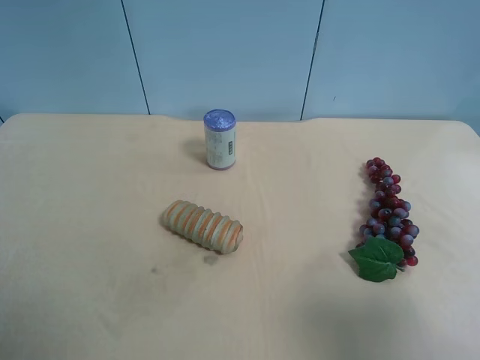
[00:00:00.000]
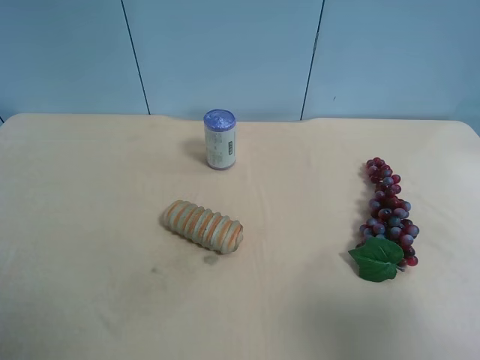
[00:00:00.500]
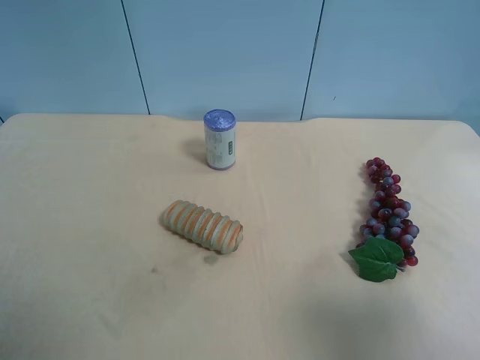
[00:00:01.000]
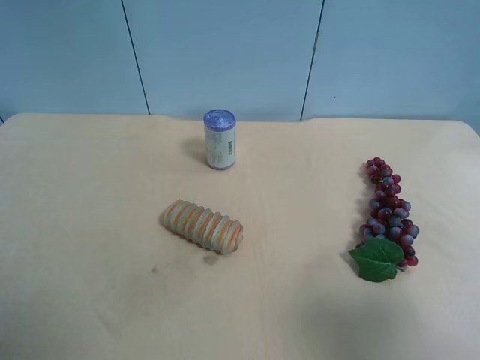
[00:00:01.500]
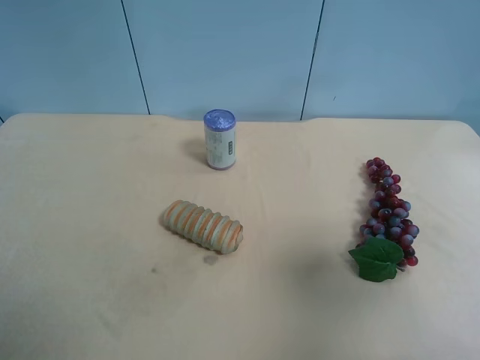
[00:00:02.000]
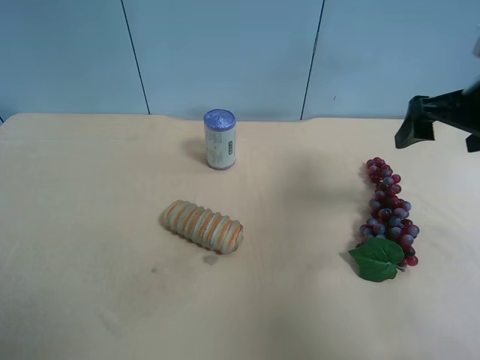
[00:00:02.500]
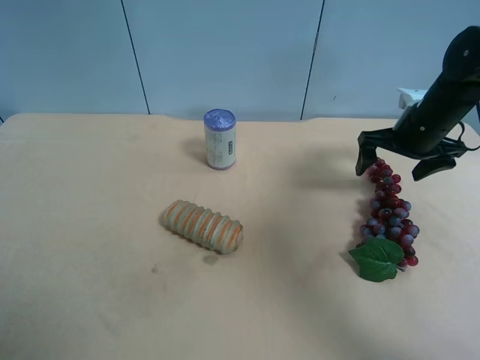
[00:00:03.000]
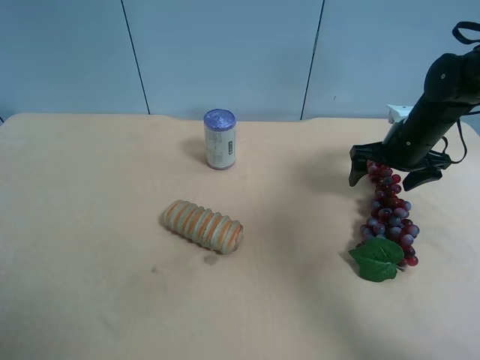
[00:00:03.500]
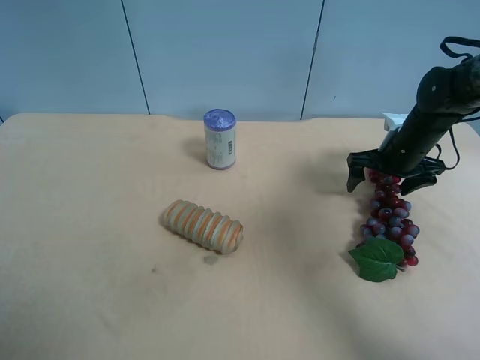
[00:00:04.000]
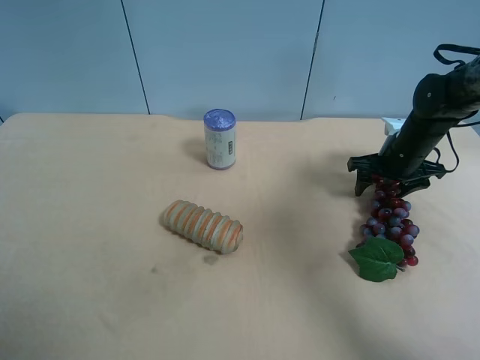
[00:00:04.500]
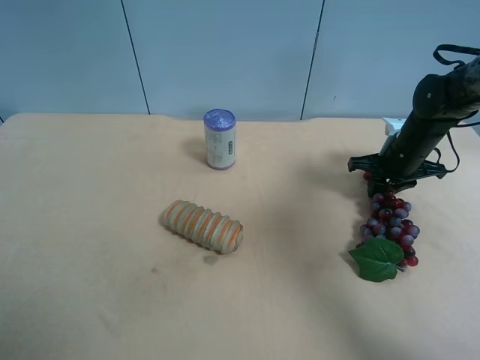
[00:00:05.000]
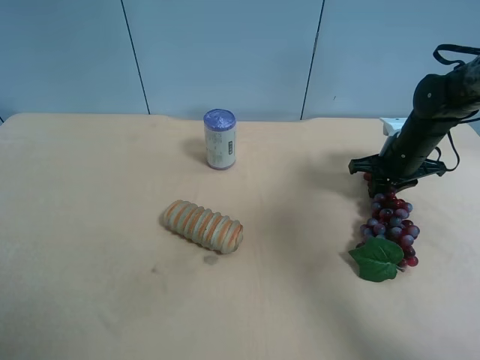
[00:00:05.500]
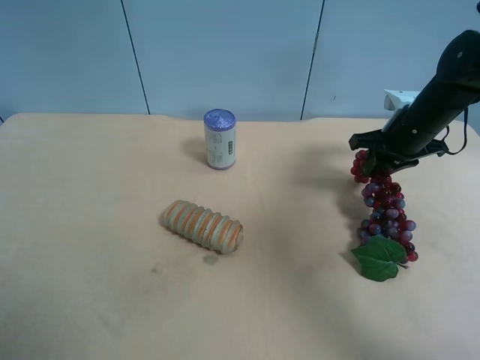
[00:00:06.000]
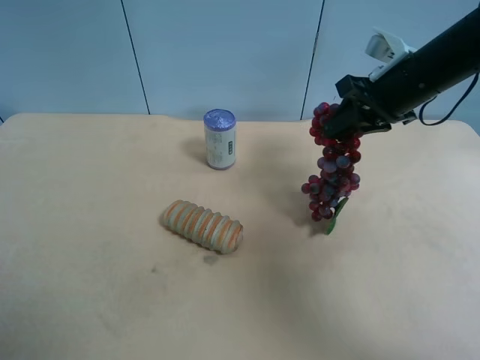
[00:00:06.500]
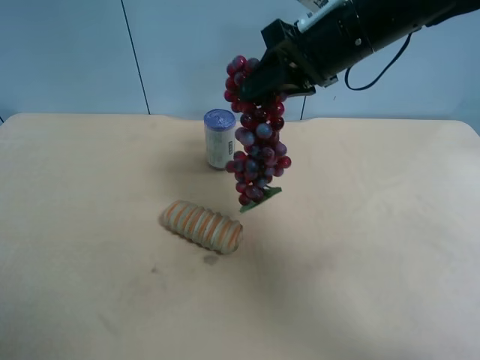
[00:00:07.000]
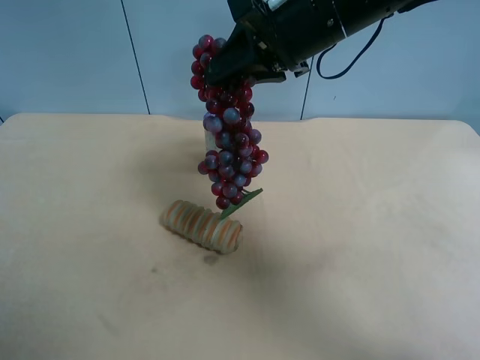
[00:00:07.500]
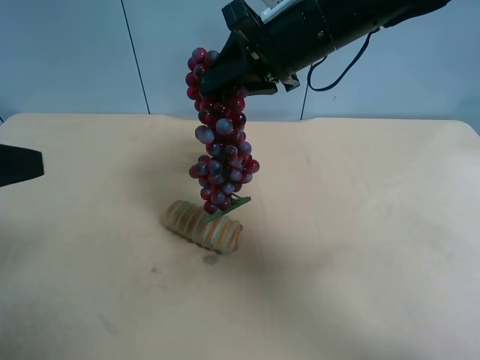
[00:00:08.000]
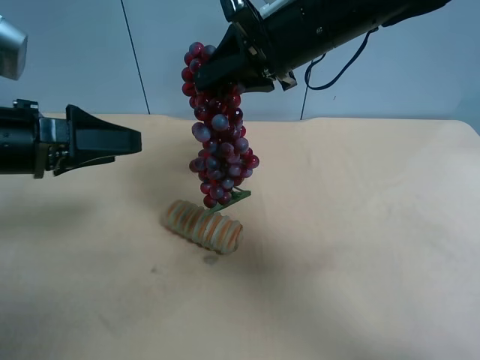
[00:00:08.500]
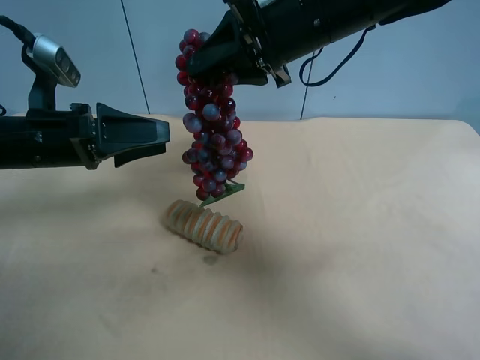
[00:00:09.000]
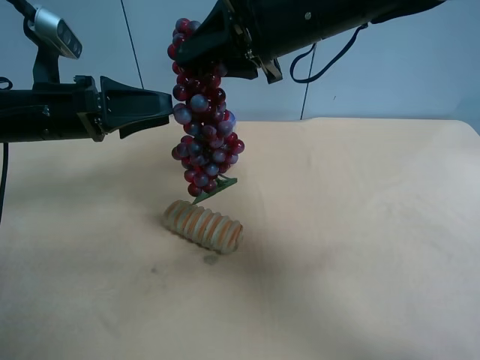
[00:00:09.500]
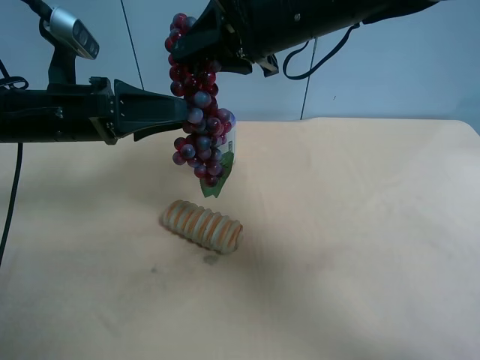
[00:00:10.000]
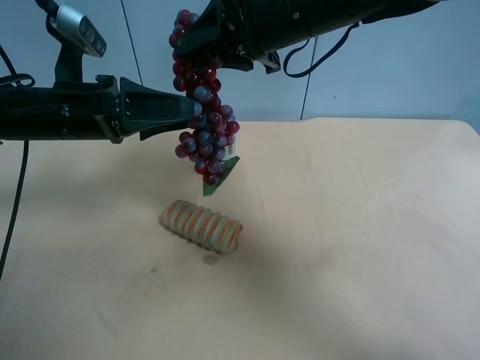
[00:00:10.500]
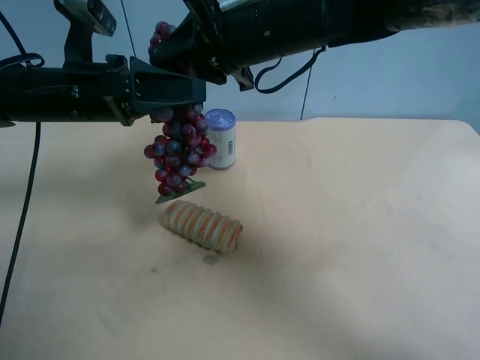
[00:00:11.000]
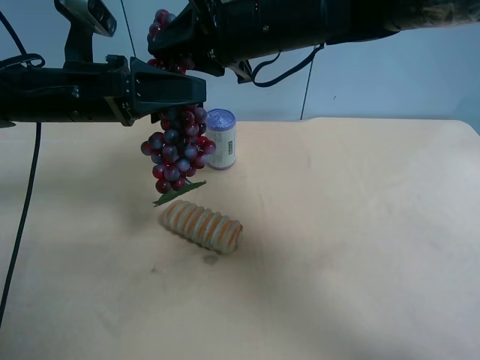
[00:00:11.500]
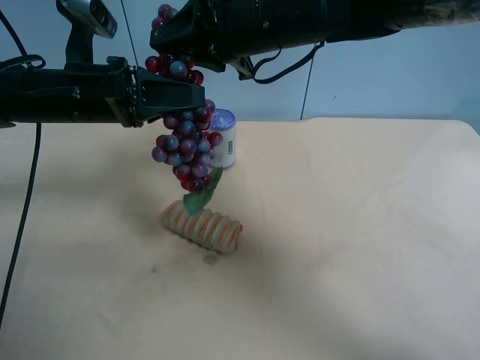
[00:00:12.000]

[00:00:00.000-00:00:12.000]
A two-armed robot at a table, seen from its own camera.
Task of the whole recording: use the right gripper to pick up the item and transfer it from the right gripper to the left gripper.
00:00:00.000 to 00:00:02.000: The right gripper goes about 10 cm forward.
00:00:02.000 to 00:00:04.000: The right gripper is displaced forward and downward by about 35 cm.
00:00:04.000 to 00:00:06.000: The right gripper travels upward by roughly 5 cm, and closes up.
00:00:06.000 to 00:00:08.000: The right gripper moves to the left and upward, approximately 25 cm; the left gripper heads forward, covering about 10 cm.
00:00:08.000 to 00:00:10.000: The left gripper travels forward, downward and to the right by some 20 cm.
00:00:10.000 to 00:00:12.000: The left gripper closes its fingers.

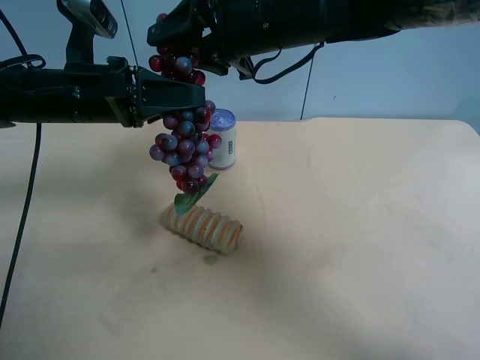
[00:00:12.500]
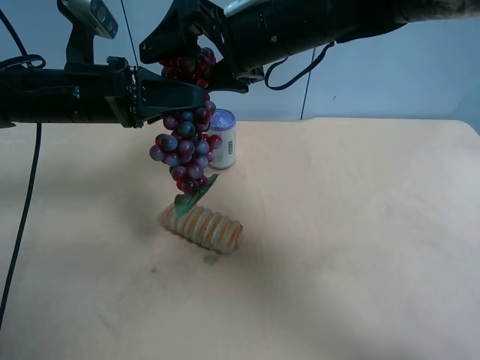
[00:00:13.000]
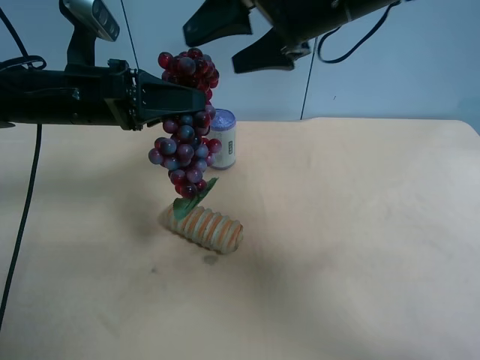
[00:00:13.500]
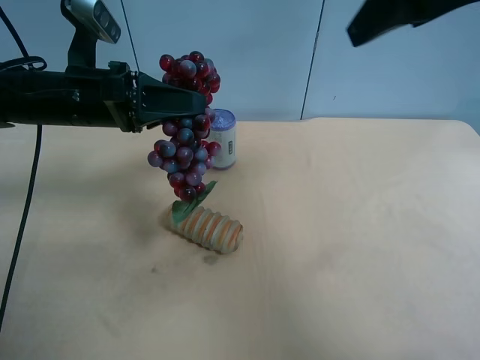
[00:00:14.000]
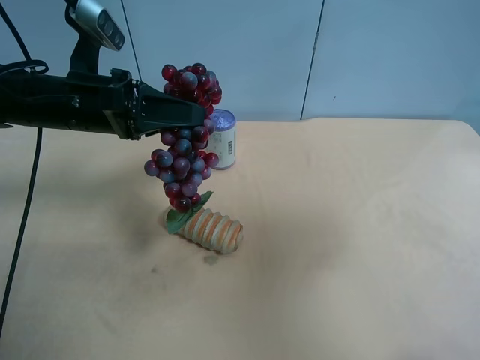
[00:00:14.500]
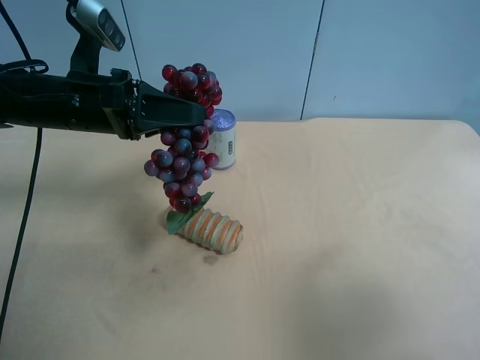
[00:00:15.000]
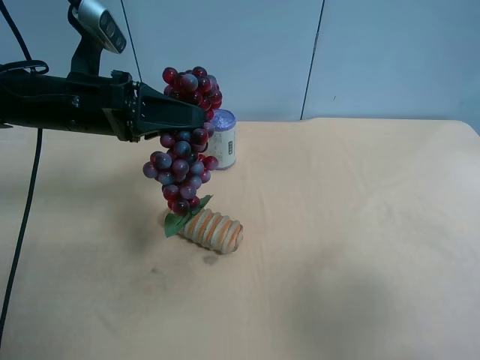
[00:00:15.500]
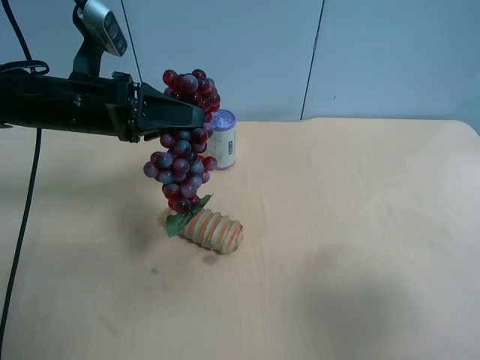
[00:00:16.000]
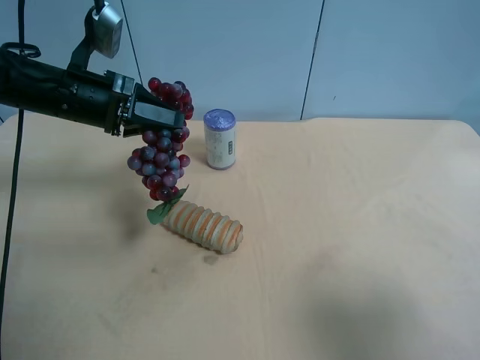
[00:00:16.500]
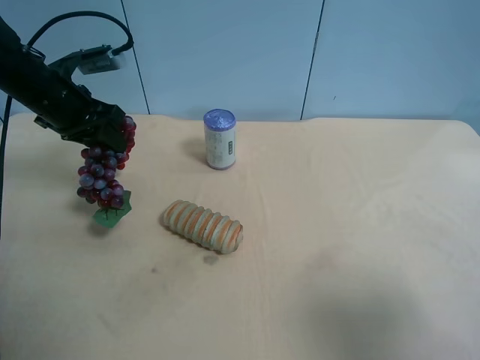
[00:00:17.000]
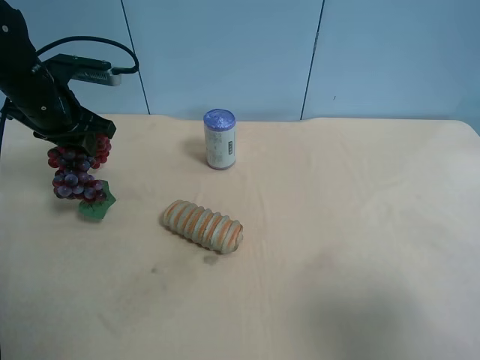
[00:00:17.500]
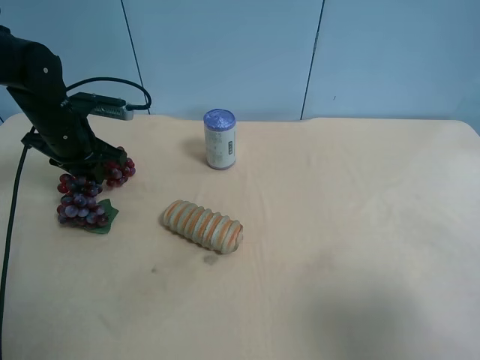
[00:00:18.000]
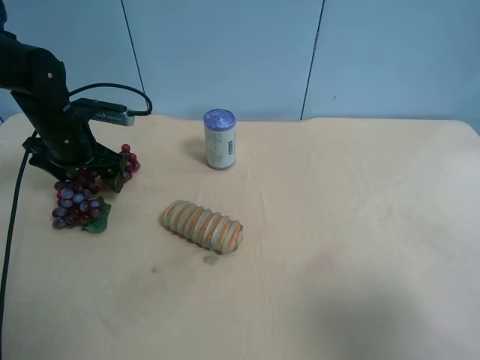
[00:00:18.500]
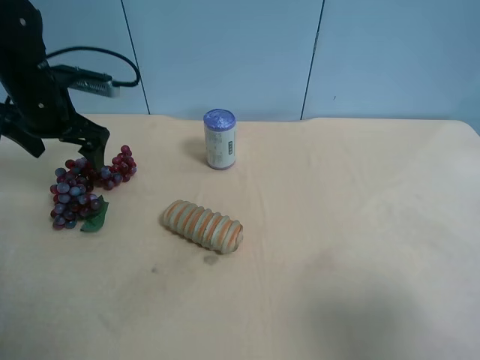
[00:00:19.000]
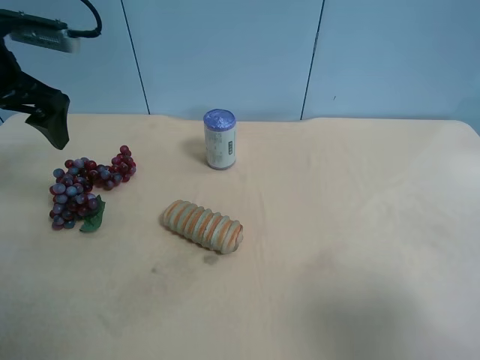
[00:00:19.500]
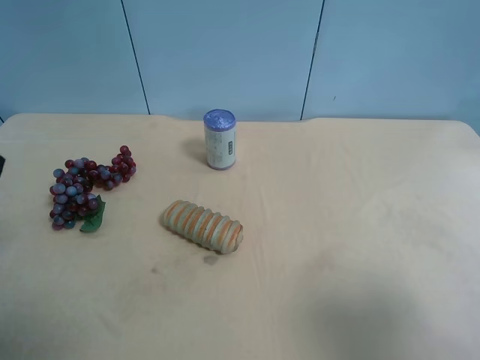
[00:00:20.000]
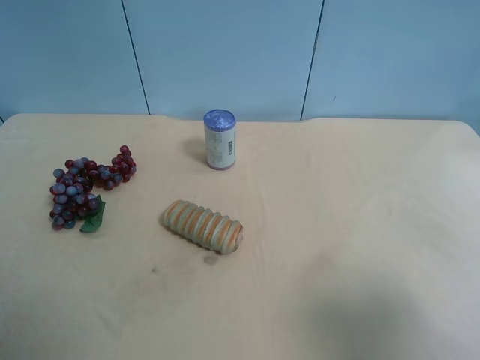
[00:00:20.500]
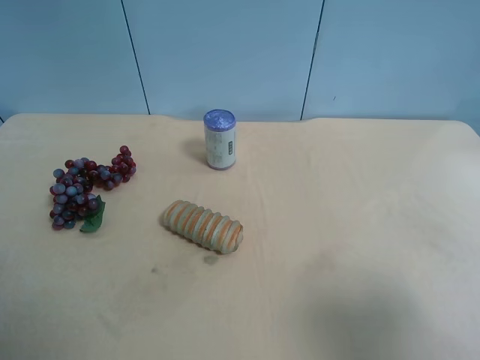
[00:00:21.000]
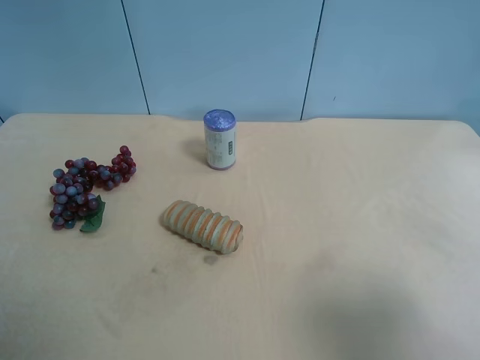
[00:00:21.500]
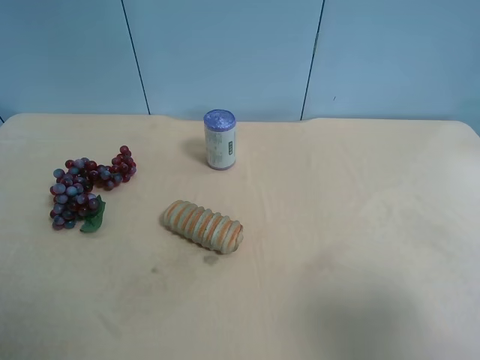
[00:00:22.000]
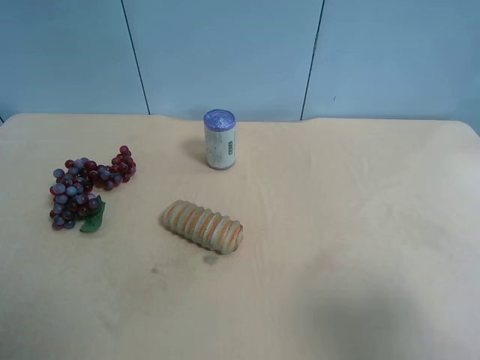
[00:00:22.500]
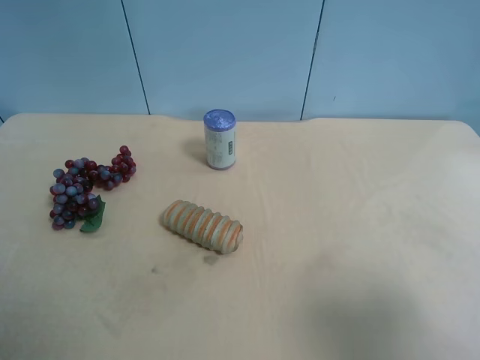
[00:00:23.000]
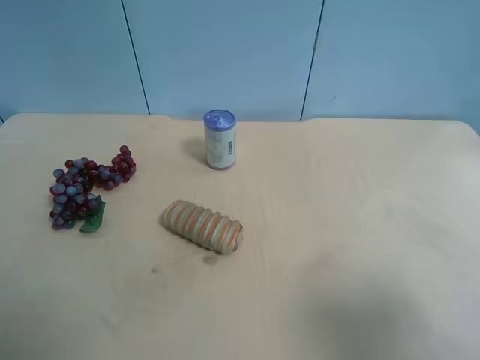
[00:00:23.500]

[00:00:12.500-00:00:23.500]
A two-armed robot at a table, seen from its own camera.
Task of the whole recording: use the right gripper to pick up the item and transfer it from the right gripper to the left gripper.
00:00:12.500 to 00:00:14.500: The right gripper travels backward and to the right by about 35 cm, and opens up.
00:00:14.500 to 00:00:16.000: The right gripper goes some 10 cm downward and backward.
00:00:16.000 to 00:00:18.000: The left gripper shifts roughly 10 cm to the left, forward and downward.
00:00:18.000 to 00:00:20.000: The left gripper moves backward and upward, about 30 cm, and opens up.

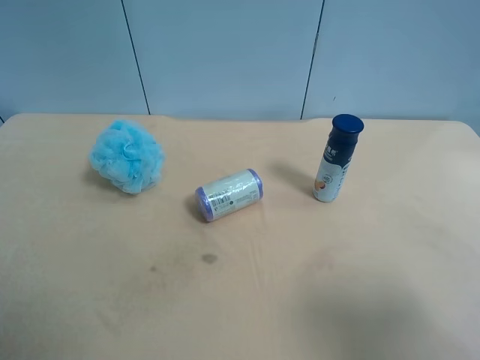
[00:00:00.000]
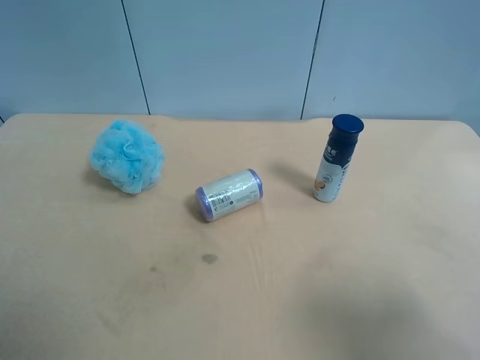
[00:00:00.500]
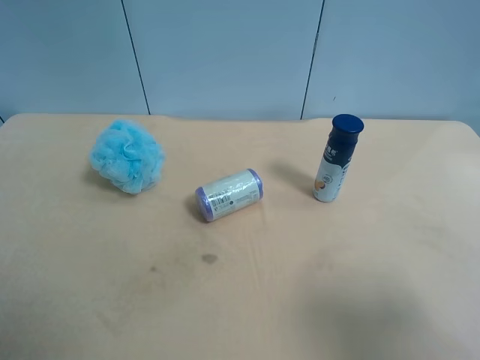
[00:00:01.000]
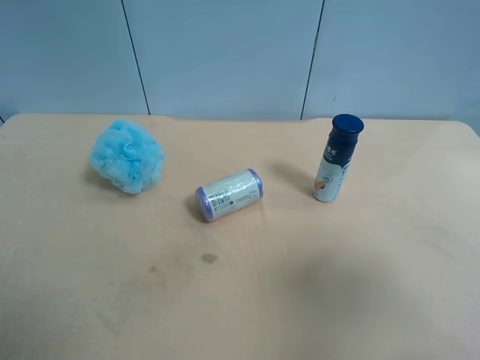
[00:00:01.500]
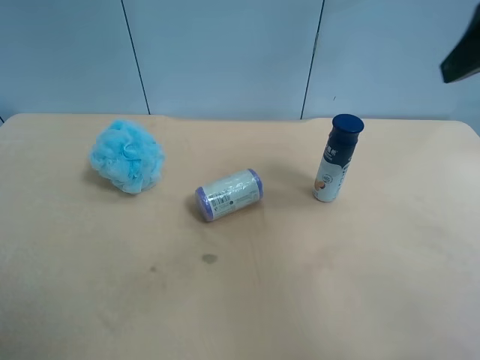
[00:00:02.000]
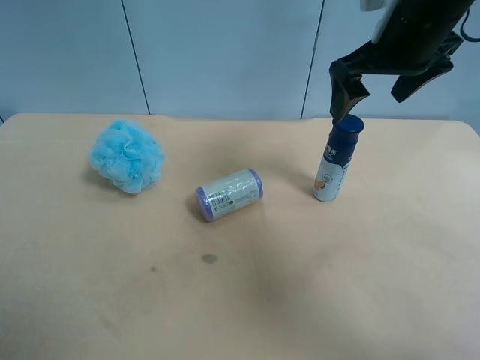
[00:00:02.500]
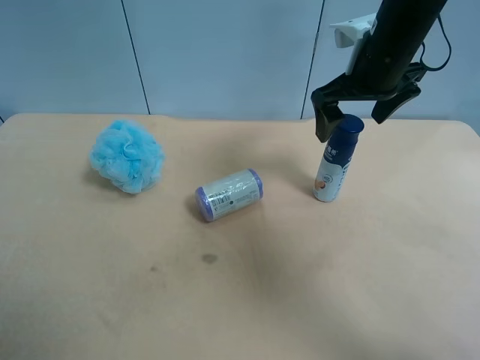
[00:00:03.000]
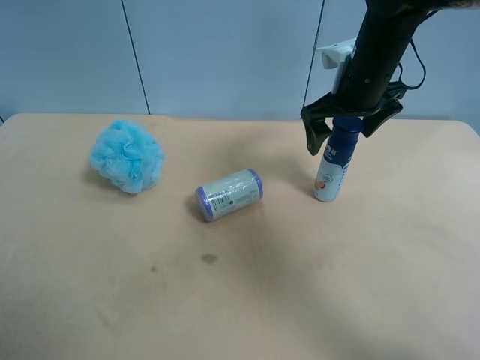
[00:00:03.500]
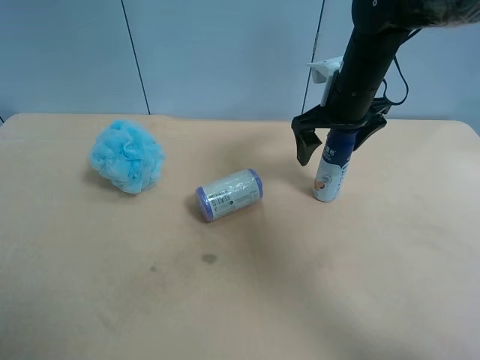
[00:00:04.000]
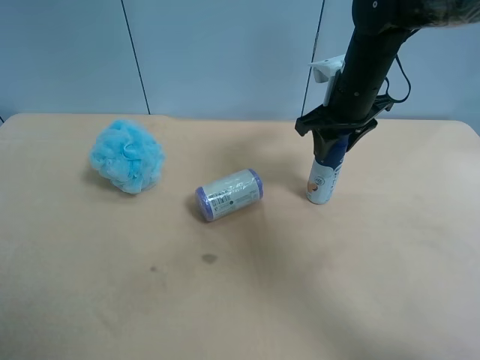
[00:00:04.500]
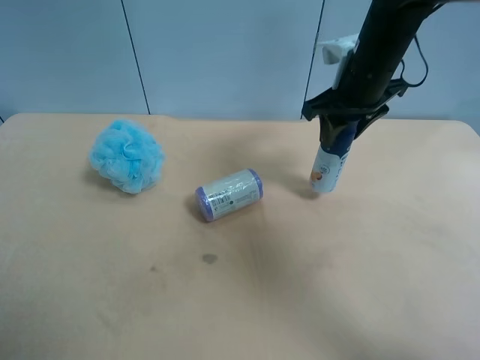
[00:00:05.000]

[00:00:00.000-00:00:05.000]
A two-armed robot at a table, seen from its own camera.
Task of the whole recording: use the right gripper to pick up the item and transfer it from the right gripper to the left gripper.
00:00:00.000 to 00:00:02.500: The right gripper moves forward, roughly 30 cm.
00:00:02.500 to 00:00:05.000: The right gripper shifts roughly 5 cm downward, and closes its fingers.
